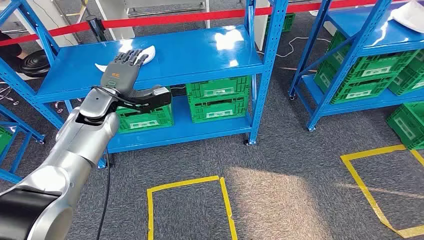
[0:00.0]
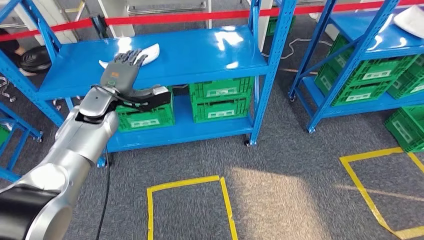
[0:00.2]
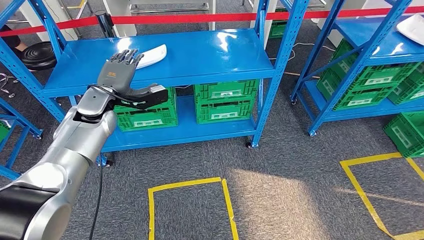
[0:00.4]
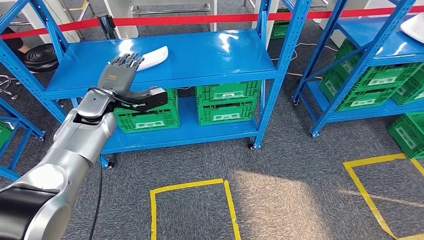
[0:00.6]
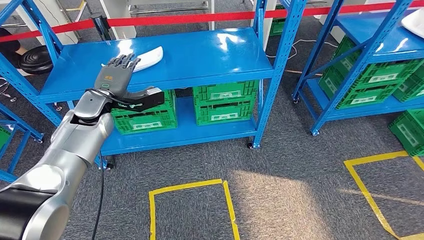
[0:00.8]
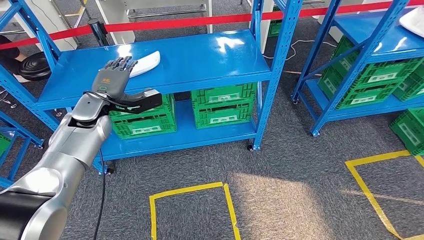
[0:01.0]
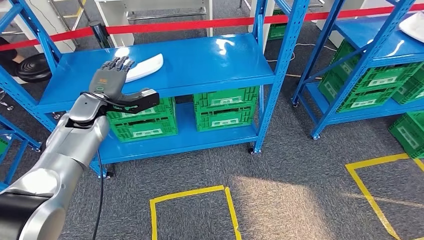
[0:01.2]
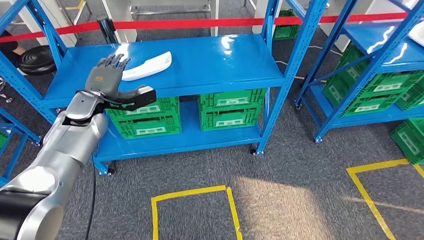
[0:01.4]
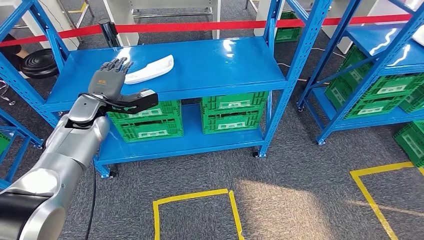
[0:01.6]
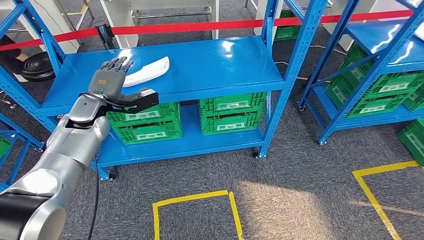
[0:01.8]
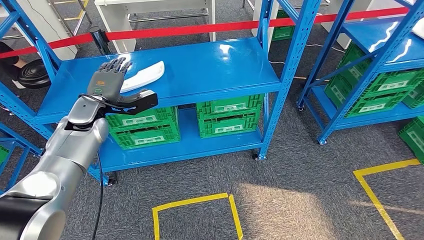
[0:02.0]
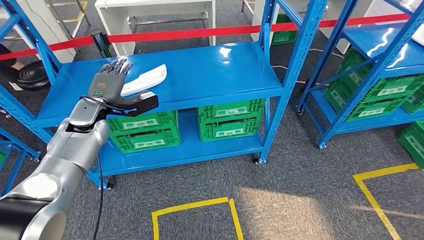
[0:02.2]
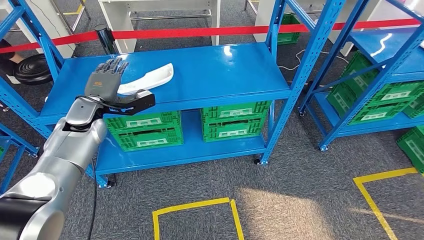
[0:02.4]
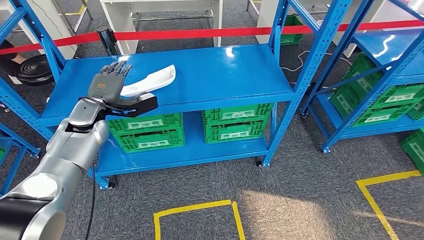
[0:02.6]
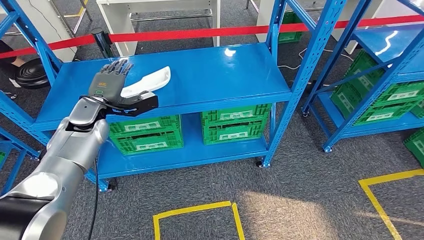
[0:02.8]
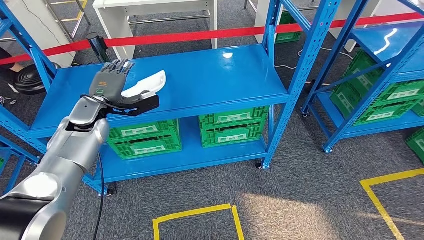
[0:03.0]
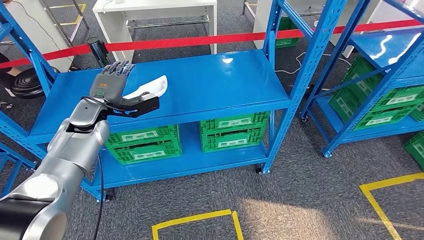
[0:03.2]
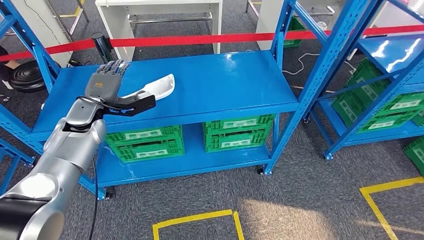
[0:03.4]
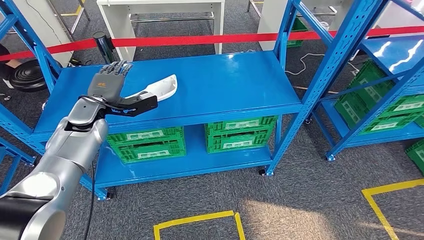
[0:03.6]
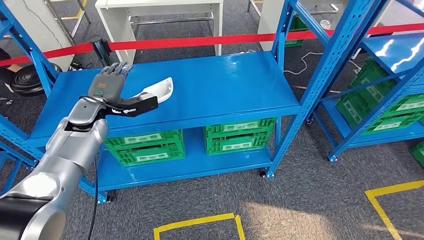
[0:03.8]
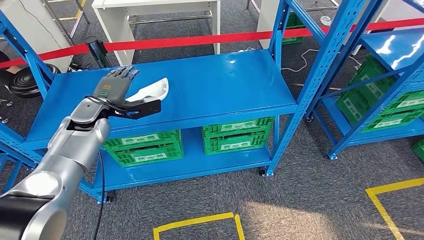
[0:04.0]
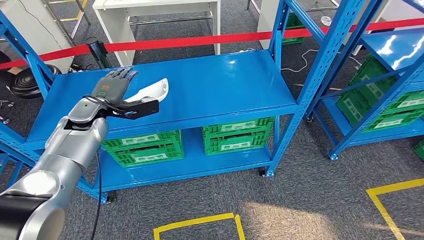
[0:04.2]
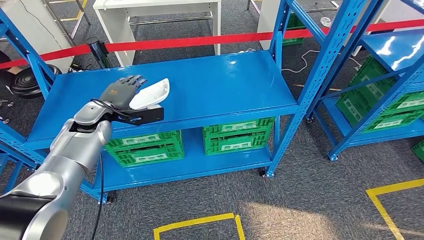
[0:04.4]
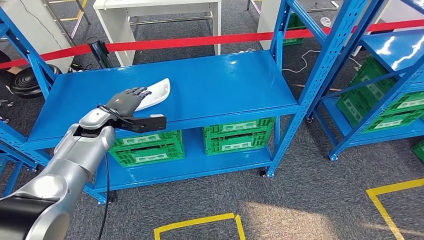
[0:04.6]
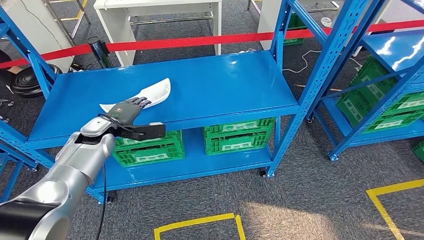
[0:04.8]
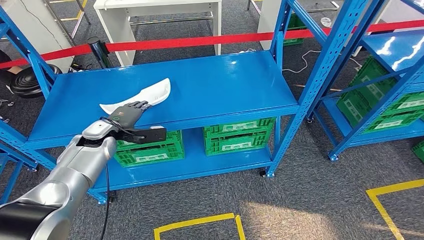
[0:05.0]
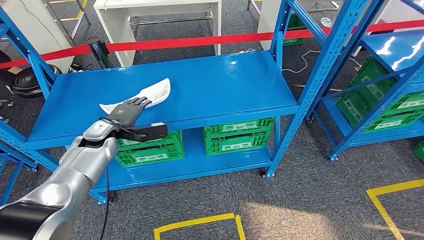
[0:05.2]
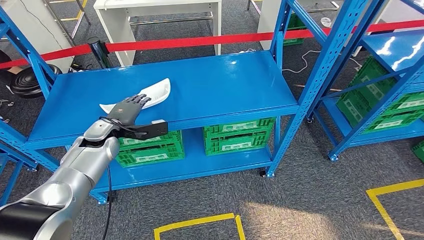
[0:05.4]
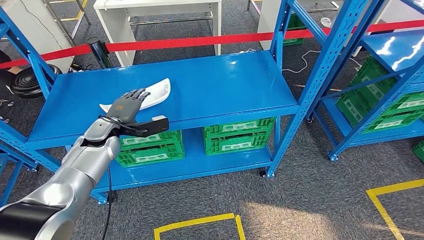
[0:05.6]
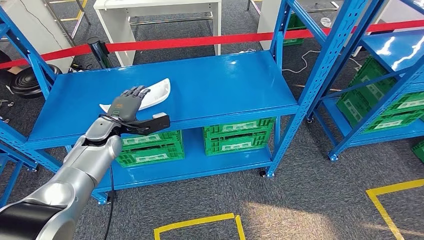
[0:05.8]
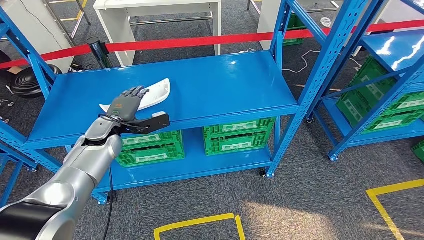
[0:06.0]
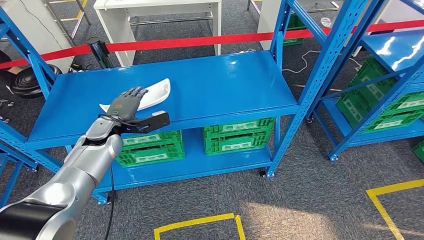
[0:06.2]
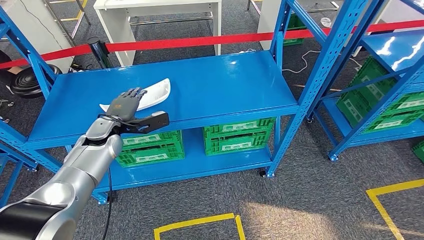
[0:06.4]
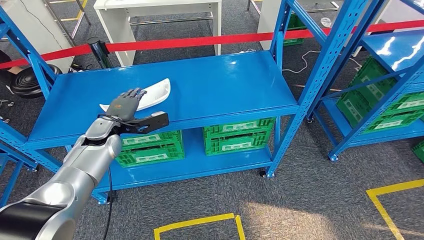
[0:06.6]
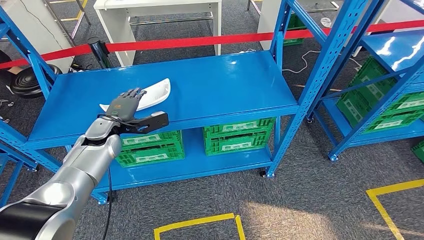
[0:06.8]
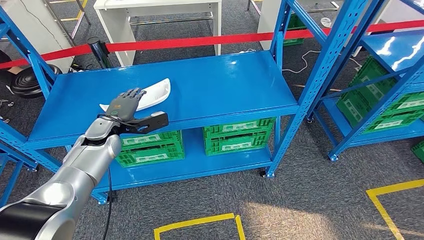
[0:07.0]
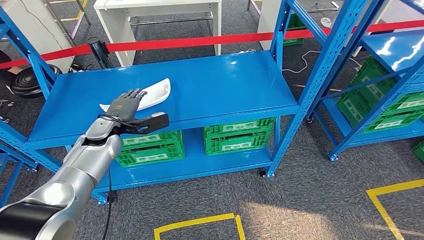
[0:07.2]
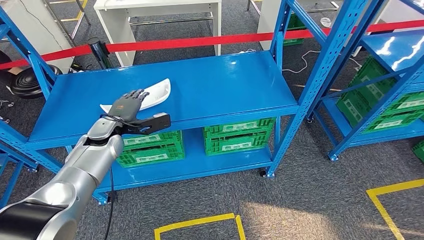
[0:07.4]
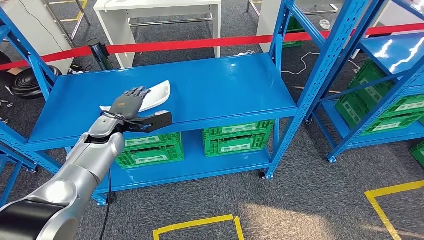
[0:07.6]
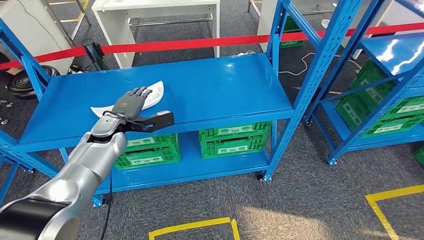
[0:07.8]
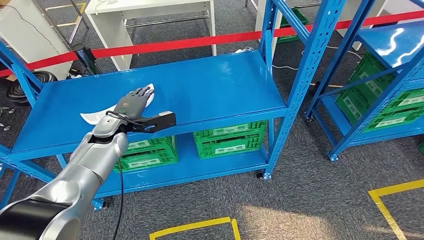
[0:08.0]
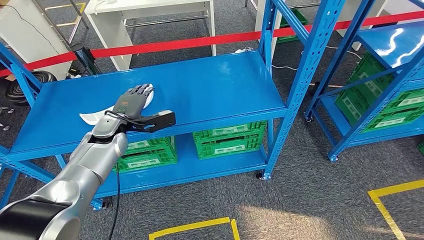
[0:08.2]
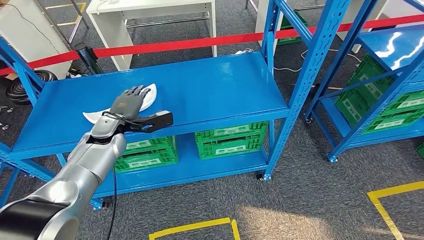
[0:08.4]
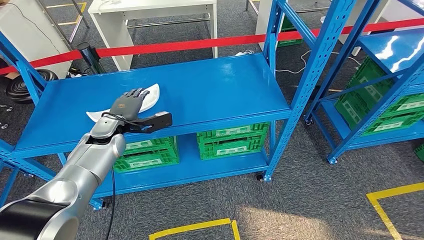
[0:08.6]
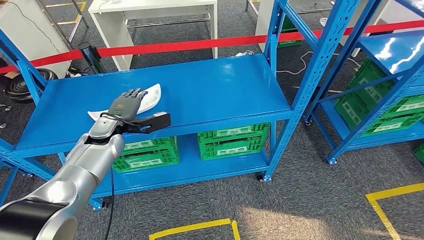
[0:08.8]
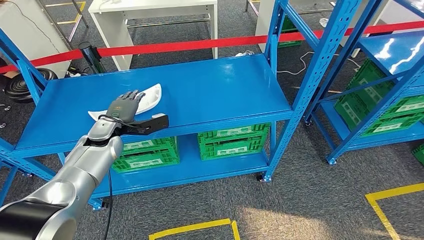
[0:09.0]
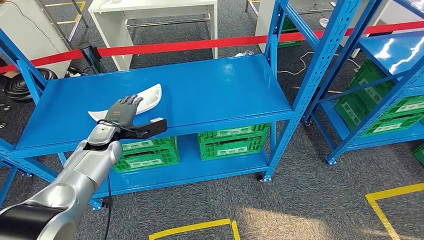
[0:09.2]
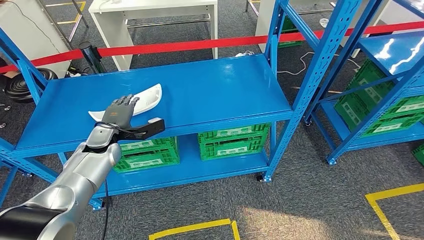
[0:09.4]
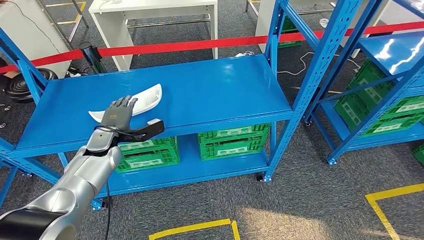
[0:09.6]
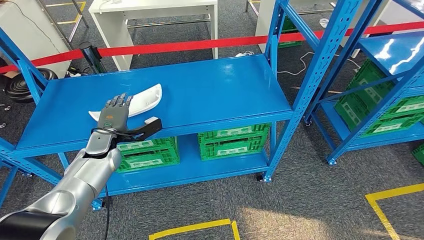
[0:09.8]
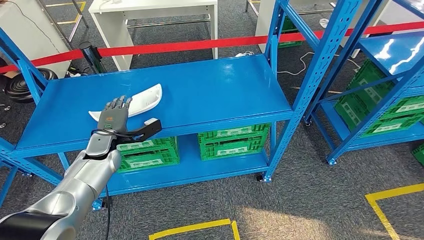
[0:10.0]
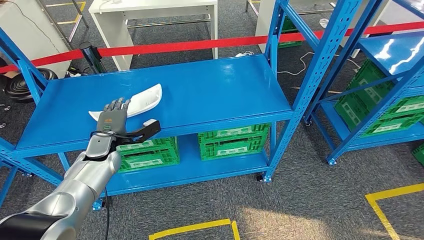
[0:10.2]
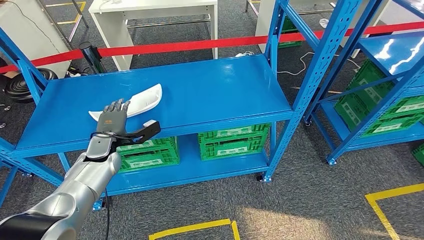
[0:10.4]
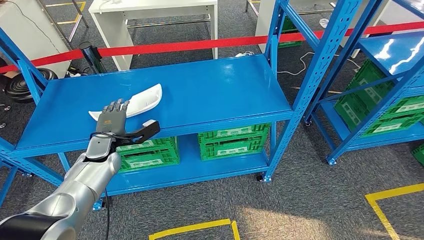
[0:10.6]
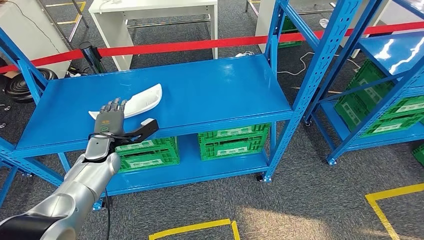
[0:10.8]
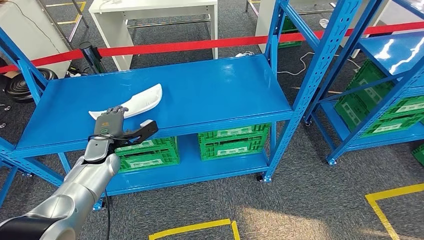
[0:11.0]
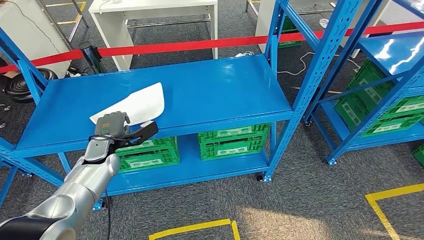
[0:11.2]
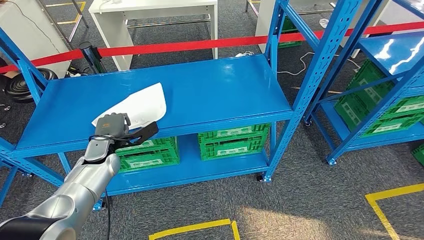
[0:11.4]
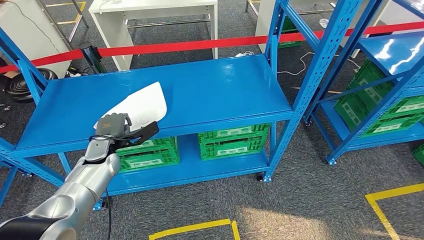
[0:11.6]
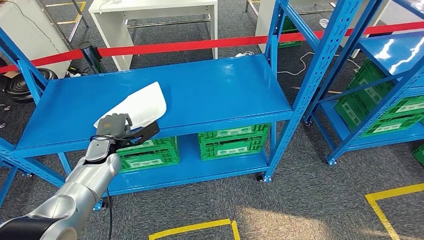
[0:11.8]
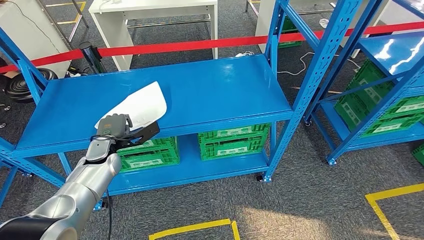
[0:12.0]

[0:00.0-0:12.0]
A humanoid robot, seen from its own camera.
0:04.4 to 0:06.0: There are only small adjustments of the hands.
0:06.0 to 0:07.6: The two hands keep their place.
0:09.0 to 0:10.4: The left hand changes place by roughly 5 cm.
0:10.4 to 0:12.0: The hands make only small movements.

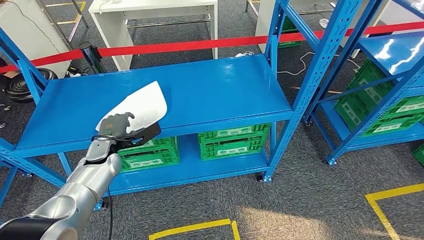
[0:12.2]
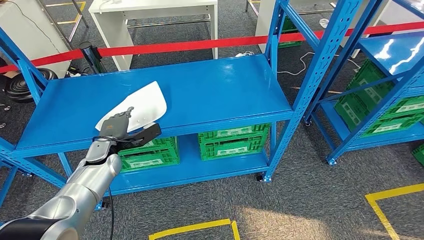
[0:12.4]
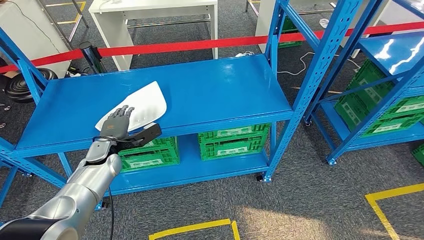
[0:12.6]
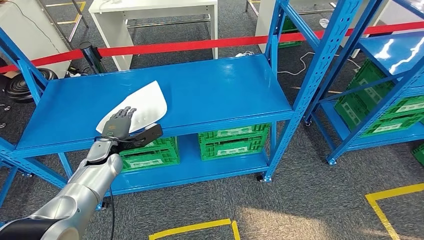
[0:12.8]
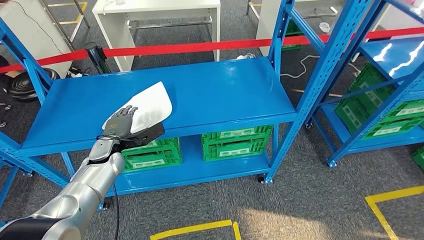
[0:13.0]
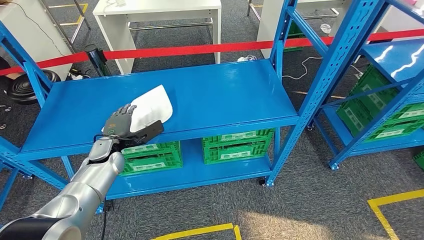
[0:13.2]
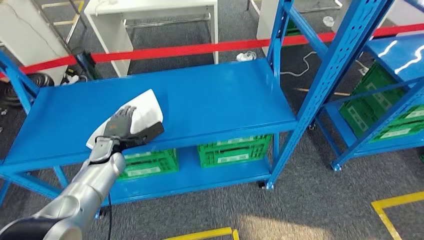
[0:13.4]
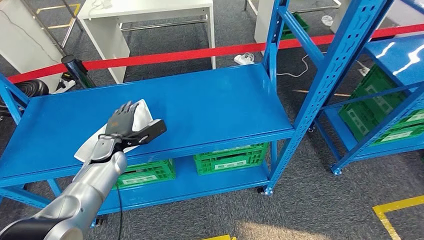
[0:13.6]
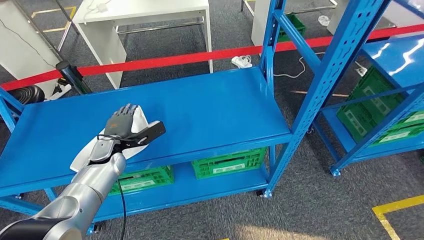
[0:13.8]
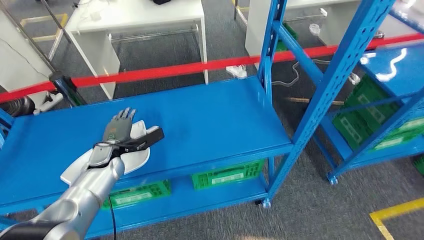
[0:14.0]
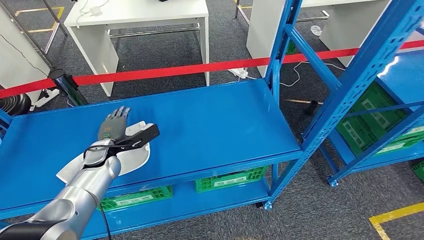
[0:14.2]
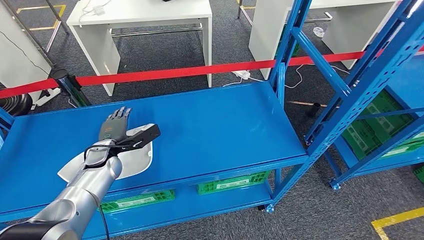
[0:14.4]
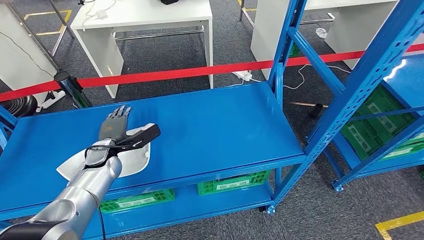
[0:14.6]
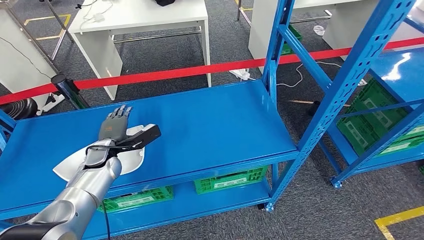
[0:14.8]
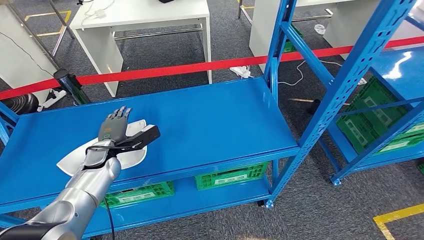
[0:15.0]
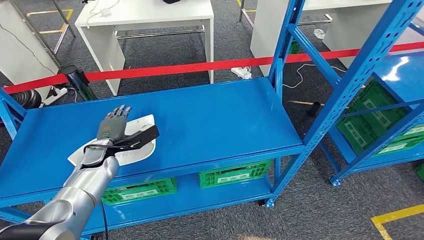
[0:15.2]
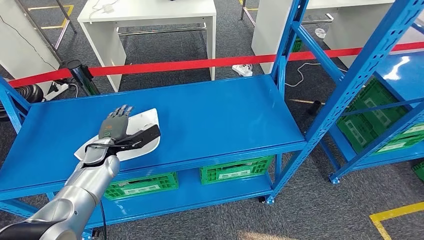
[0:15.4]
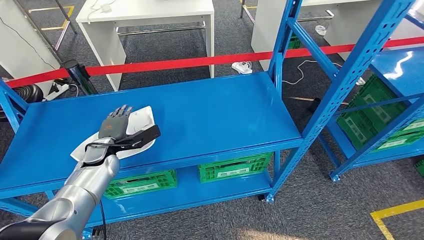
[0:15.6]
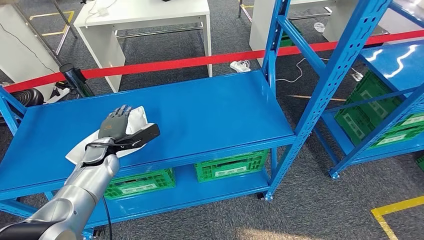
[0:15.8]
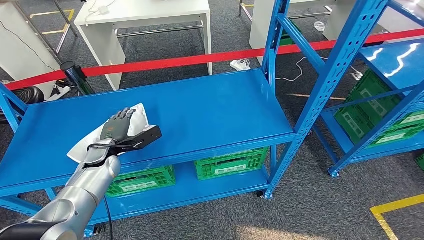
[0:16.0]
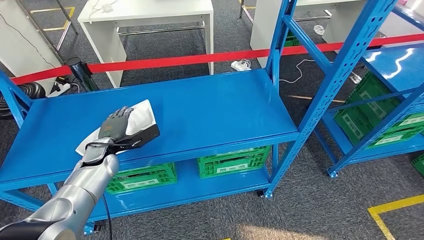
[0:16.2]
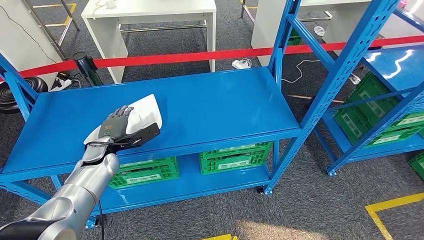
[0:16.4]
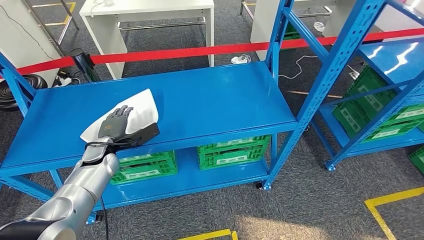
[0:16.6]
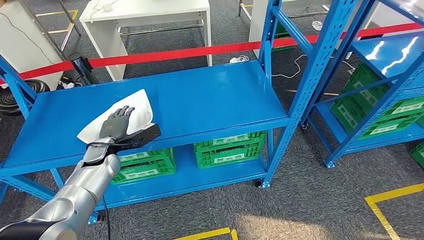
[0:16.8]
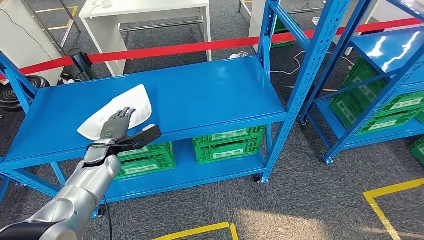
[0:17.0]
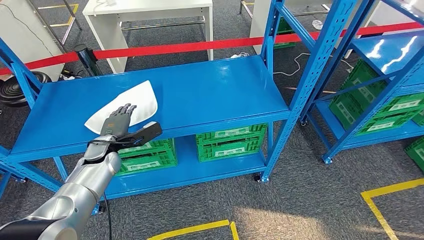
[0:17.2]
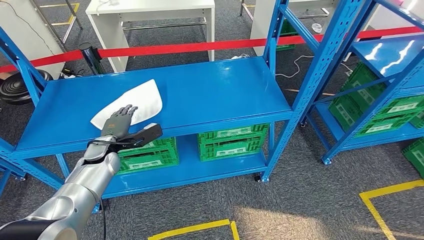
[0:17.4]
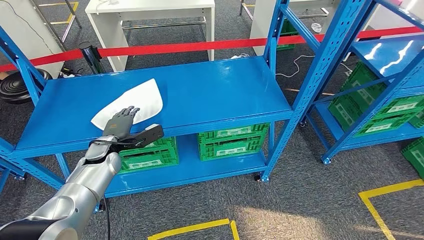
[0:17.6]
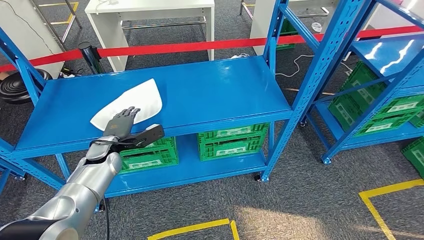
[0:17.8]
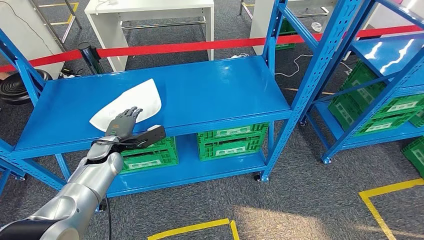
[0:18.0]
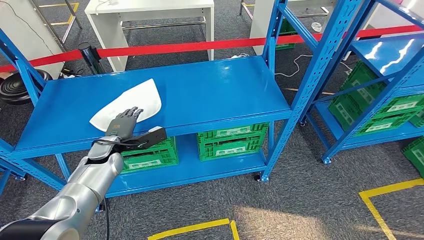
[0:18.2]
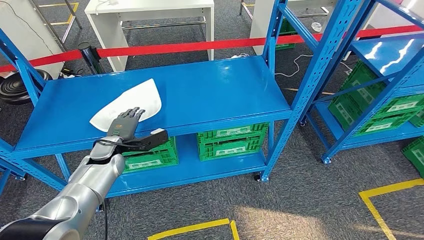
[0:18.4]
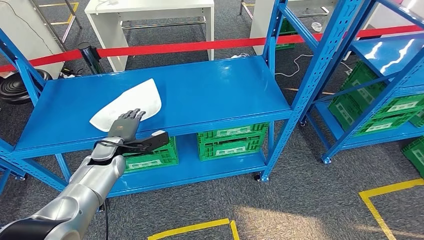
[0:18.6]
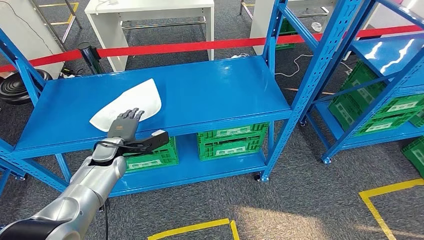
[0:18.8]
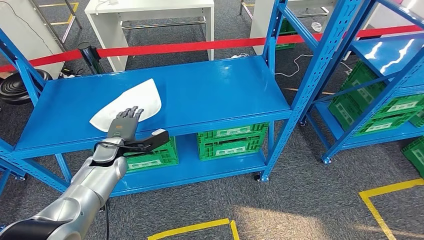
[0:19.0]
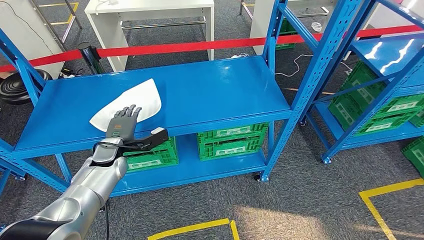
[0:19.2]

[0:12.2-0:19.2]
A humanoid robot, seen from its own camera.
0:17.8 to 0:19.2: The hands move only a little.
